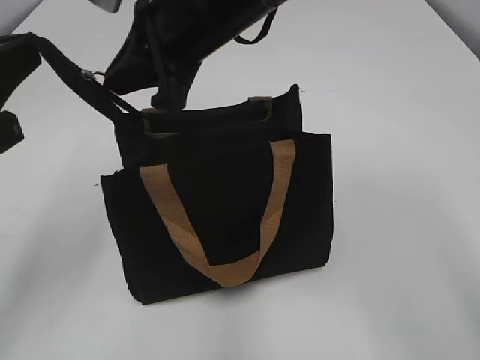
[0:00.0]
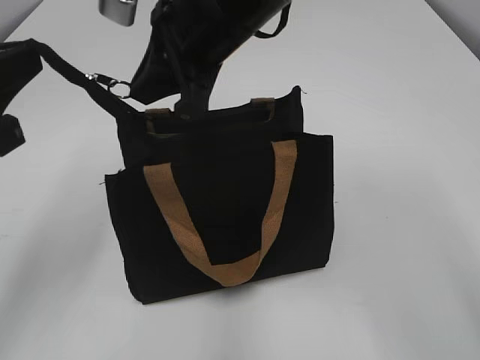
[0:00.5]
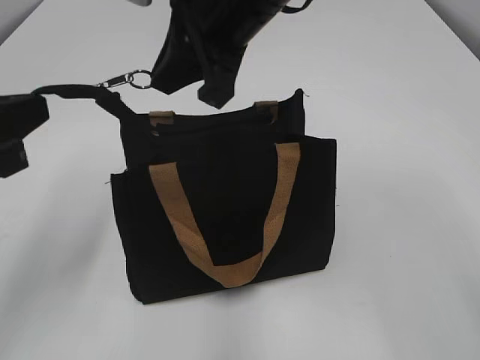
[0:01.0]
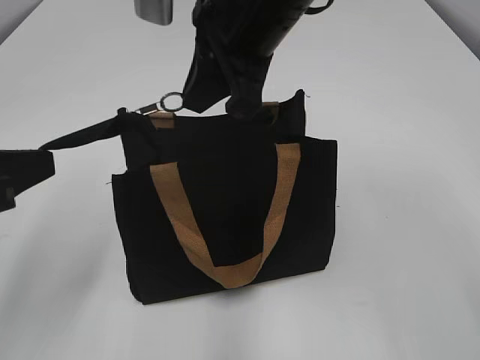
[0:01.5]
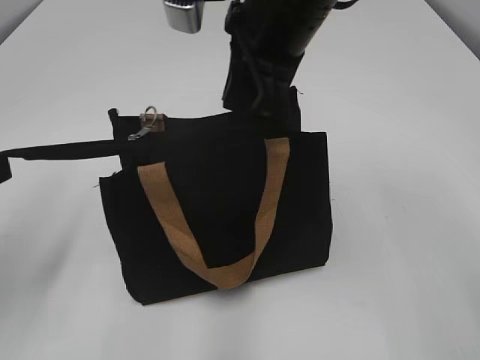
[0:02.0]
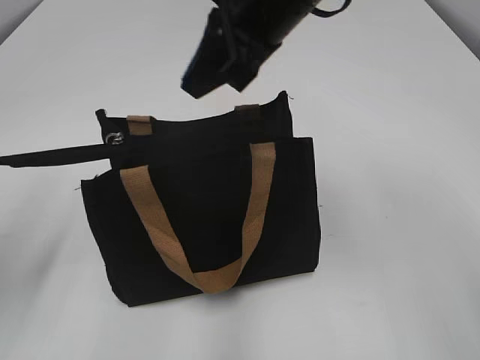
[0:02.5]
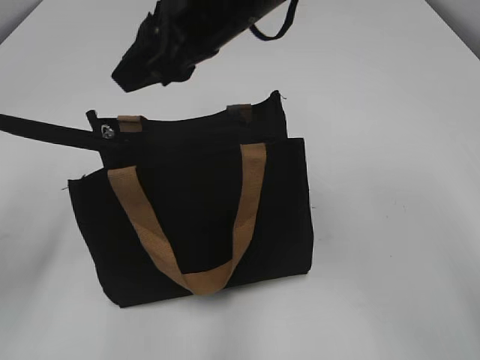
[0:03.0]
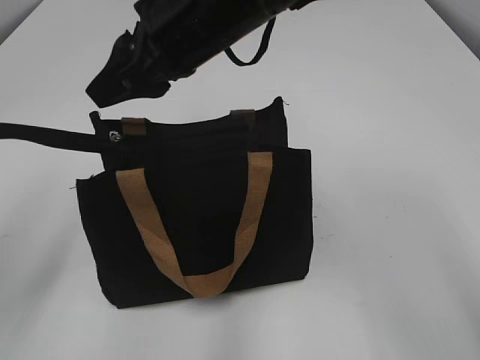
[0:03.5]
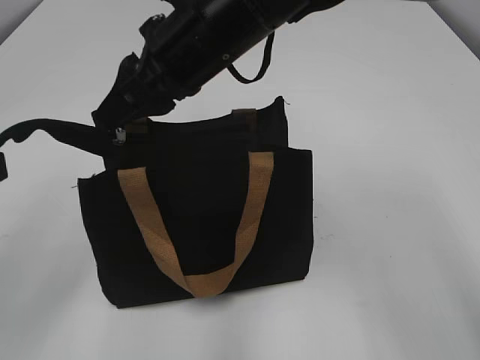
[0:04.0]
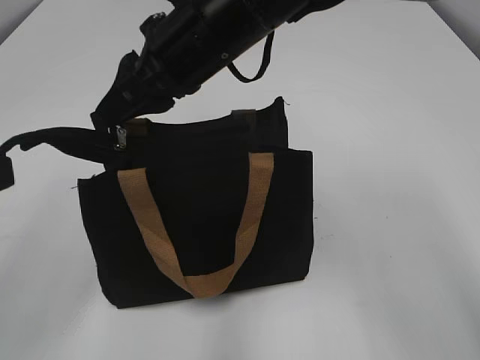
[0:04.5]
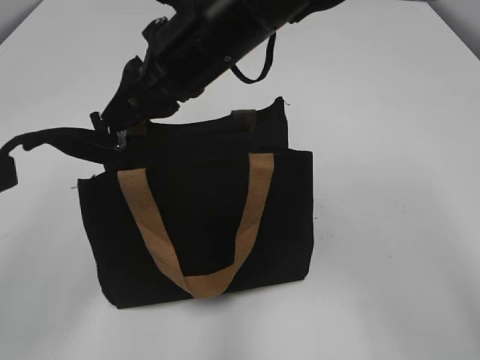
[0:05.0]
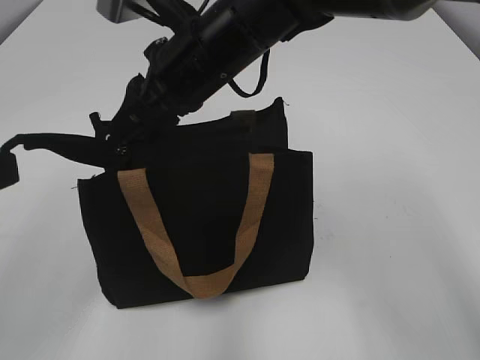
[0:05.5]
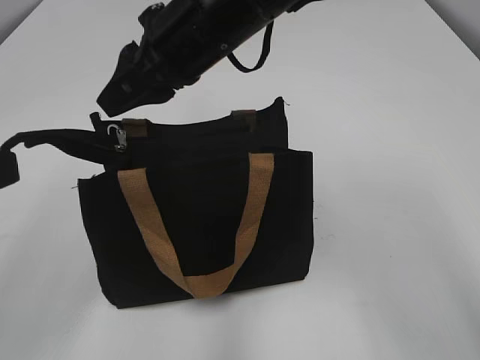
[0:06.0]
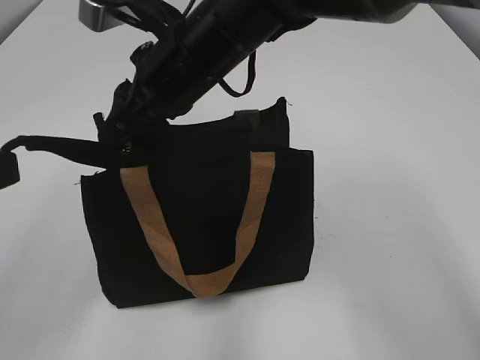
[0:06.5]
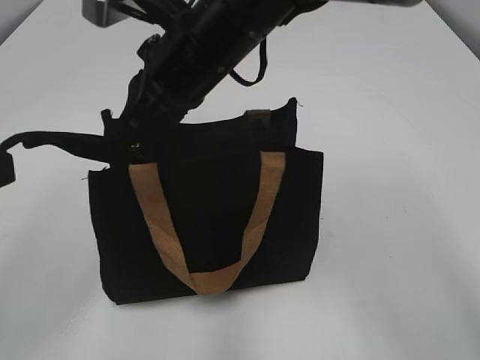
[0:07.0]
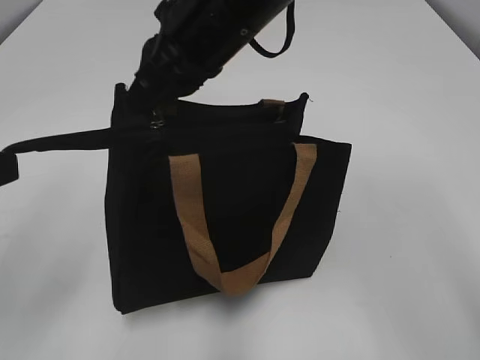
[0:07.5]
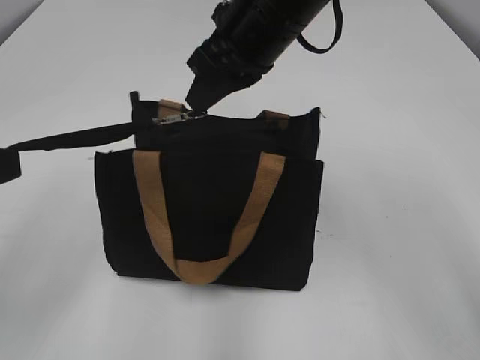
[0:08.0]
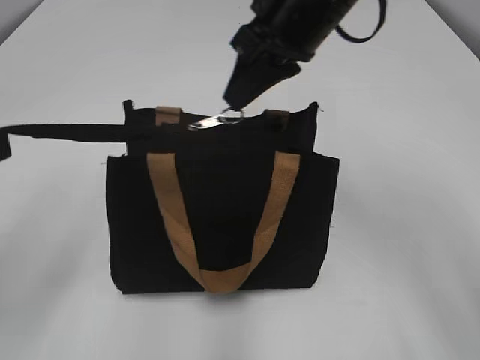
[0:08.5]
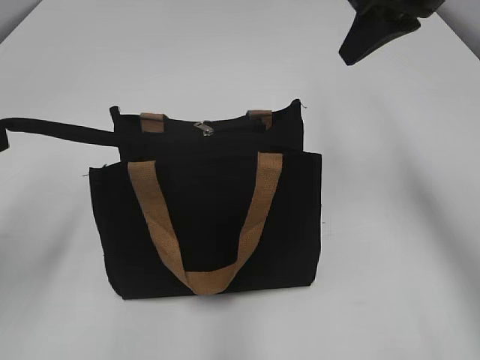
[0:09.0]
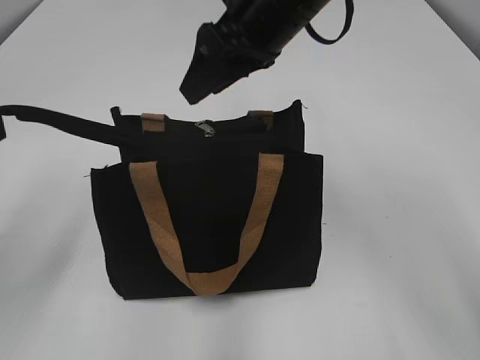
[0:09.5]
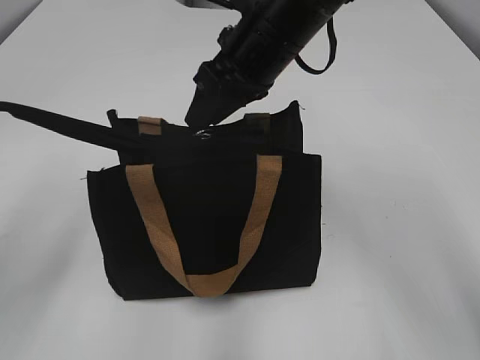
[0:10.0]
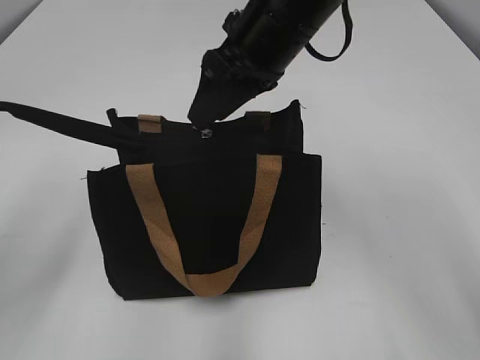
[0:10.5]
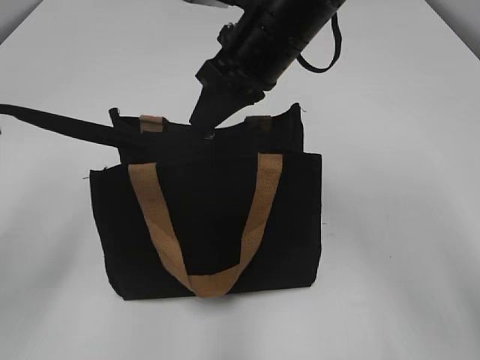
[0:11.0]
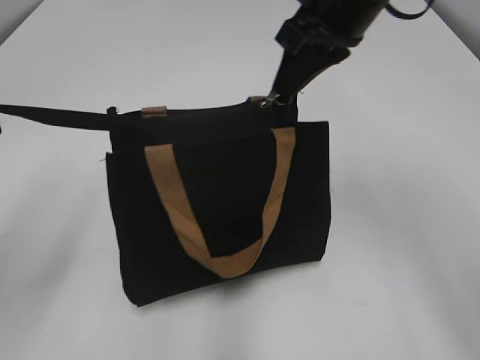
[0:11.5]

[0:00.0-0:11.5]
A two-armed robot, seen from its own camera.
0:00.0 to 0:02.0: The left gripper changes place by about 5 cm. Meanwhile the right gripper is displaced to the right by about 5 cm.
0:02.0 to 0:04.0: The right gripper goes about 5 cm to the left, and opens up.
0:04.0 to 0:07.5: The grippers move only a little.
0:07.5 to 0:09.5: The right gripper reaches about 20 cm to the right, then returns, and opens its fingers.
0:09.5 to 0:11.5: The right gripper travels to the right by about 5 cm, and closes up.

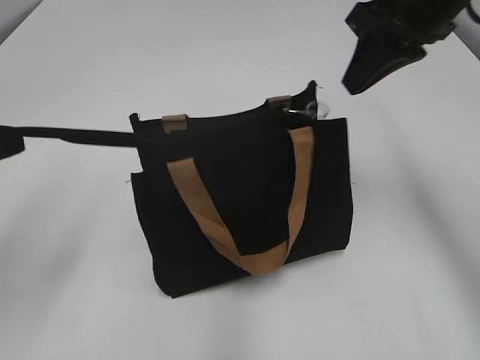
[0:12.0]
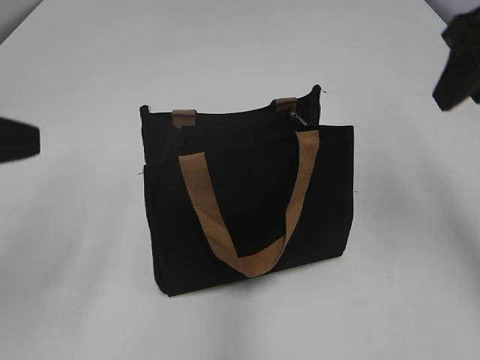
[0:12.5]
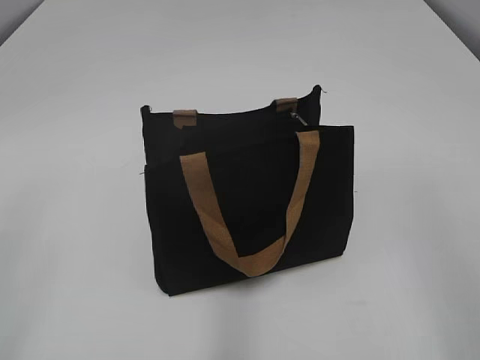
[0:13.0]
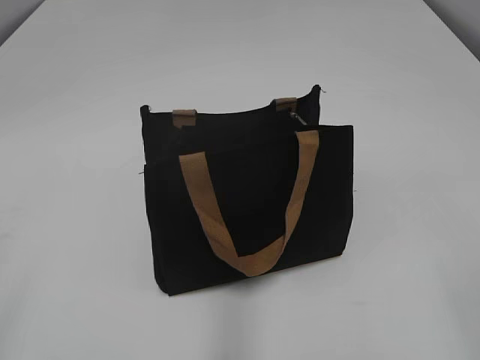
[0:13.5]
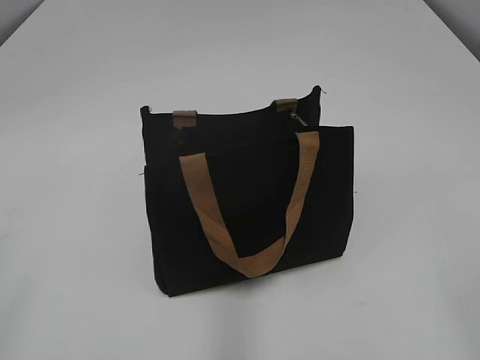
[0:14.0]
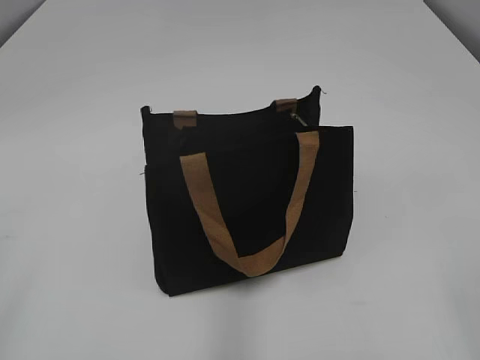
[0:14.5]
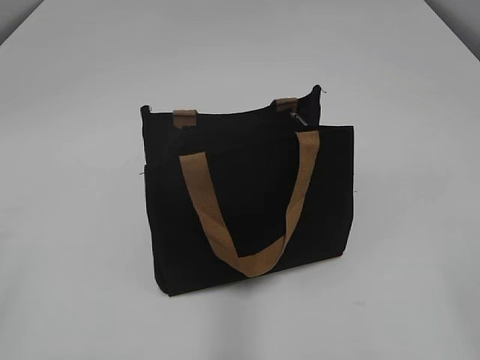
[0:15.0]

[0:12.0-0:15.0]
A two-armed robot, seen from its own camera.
0:12.0 to 0:13.5: The right gripper heads backward, covering about 35 cm, and opens up, while the left gripper goes roughly 20 cm backward, and opens its fingers.
